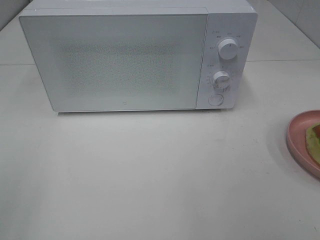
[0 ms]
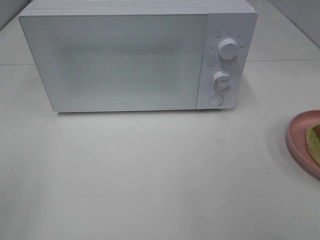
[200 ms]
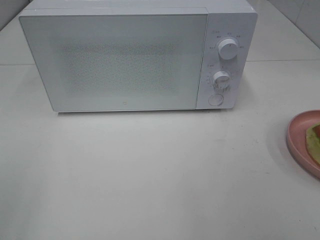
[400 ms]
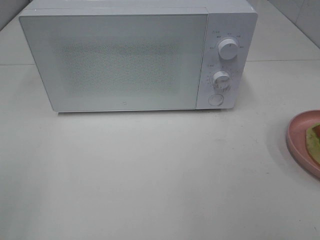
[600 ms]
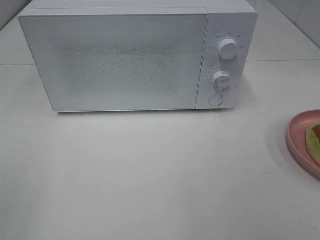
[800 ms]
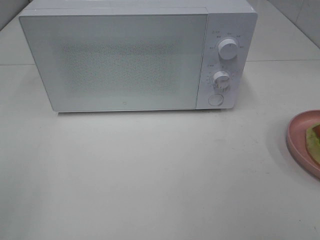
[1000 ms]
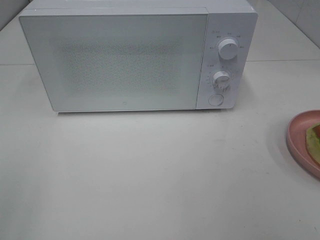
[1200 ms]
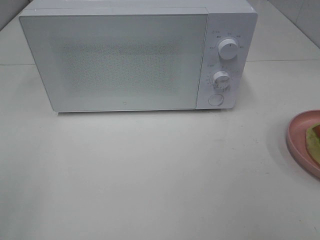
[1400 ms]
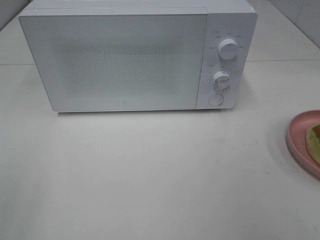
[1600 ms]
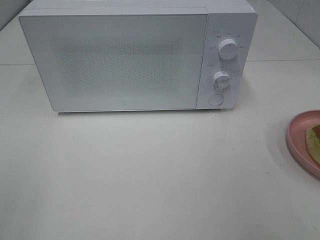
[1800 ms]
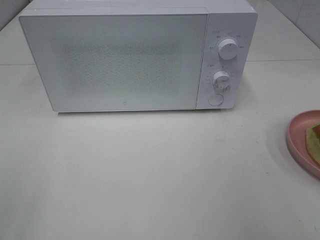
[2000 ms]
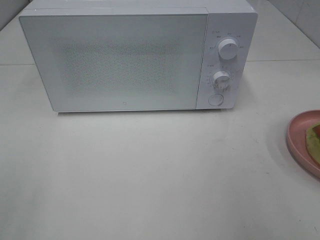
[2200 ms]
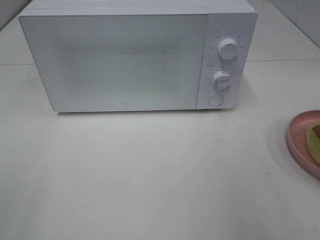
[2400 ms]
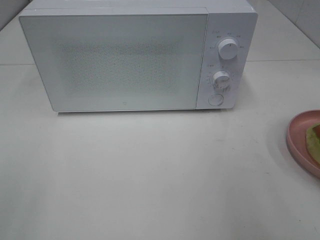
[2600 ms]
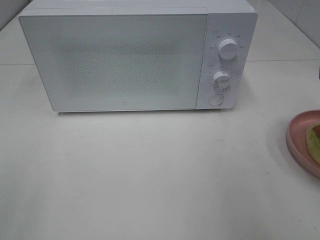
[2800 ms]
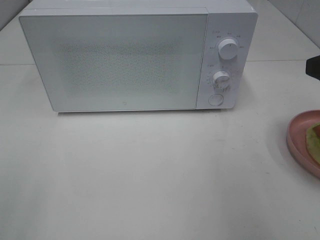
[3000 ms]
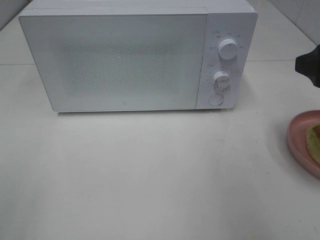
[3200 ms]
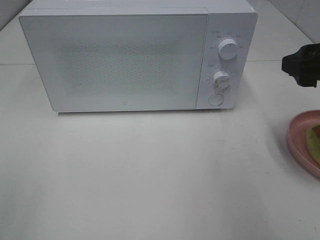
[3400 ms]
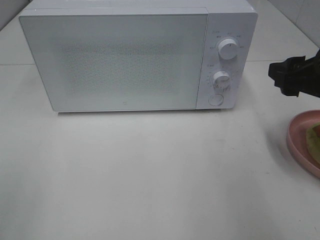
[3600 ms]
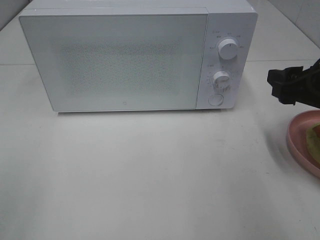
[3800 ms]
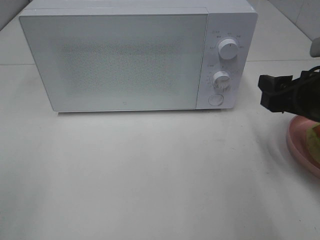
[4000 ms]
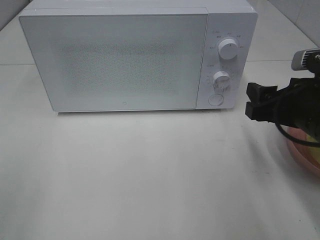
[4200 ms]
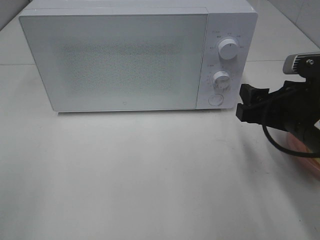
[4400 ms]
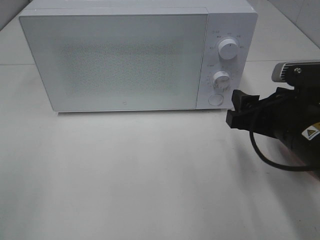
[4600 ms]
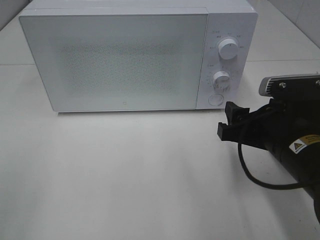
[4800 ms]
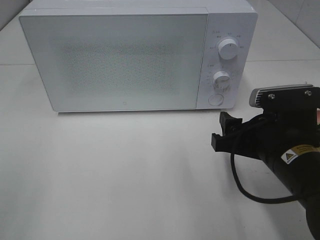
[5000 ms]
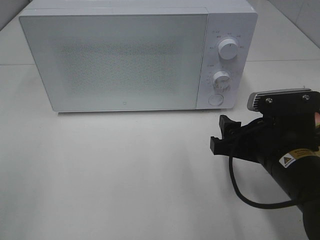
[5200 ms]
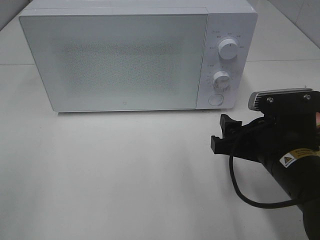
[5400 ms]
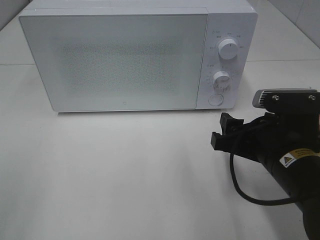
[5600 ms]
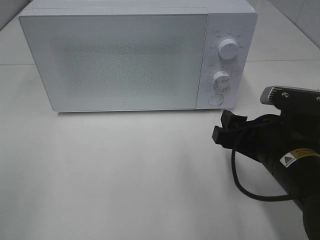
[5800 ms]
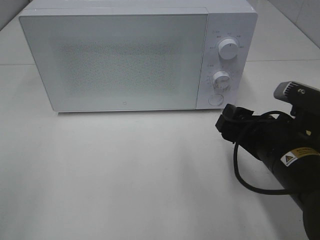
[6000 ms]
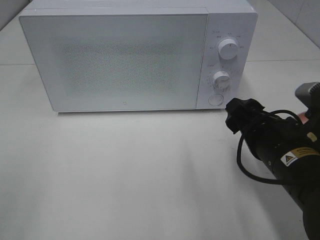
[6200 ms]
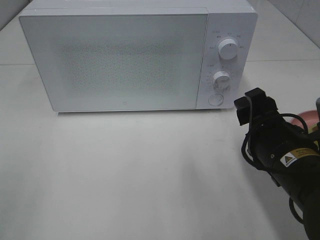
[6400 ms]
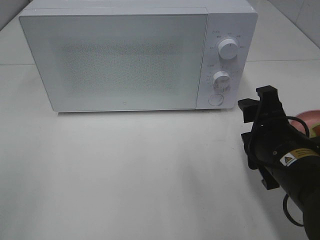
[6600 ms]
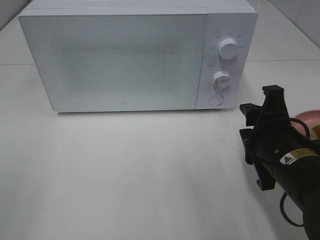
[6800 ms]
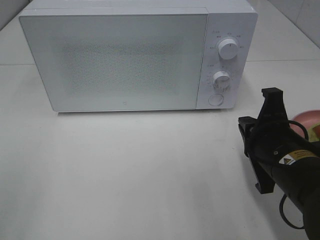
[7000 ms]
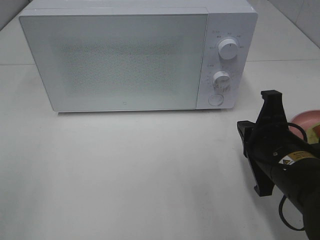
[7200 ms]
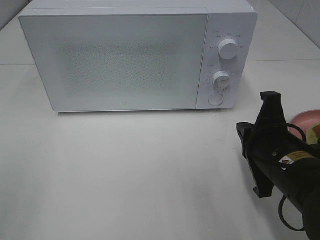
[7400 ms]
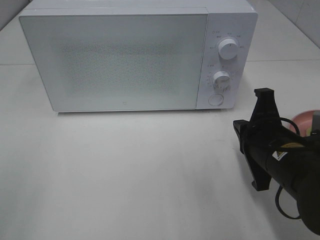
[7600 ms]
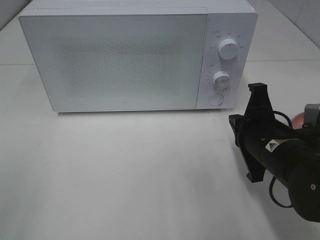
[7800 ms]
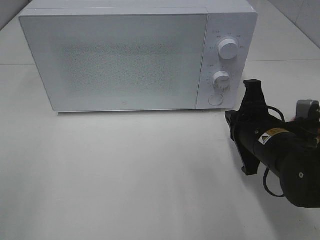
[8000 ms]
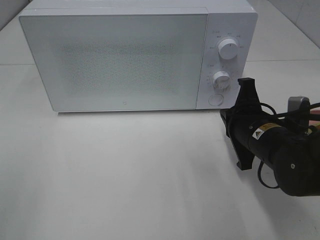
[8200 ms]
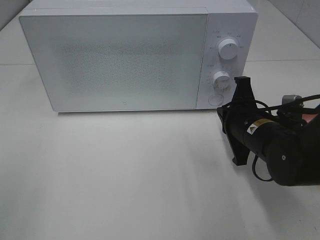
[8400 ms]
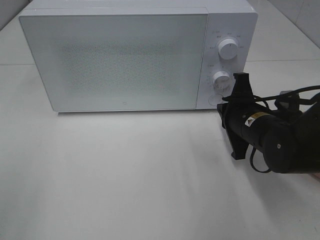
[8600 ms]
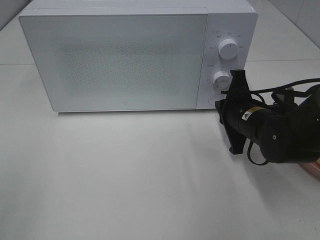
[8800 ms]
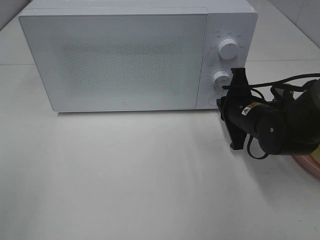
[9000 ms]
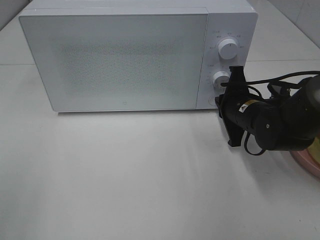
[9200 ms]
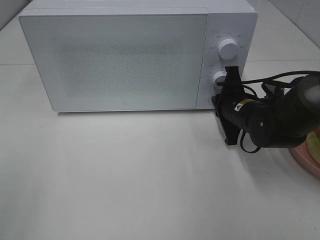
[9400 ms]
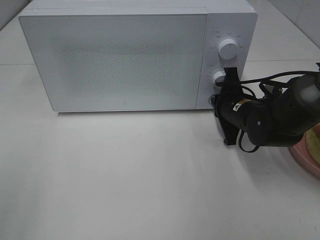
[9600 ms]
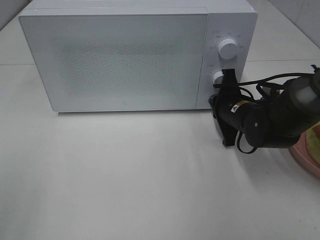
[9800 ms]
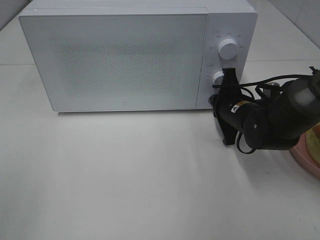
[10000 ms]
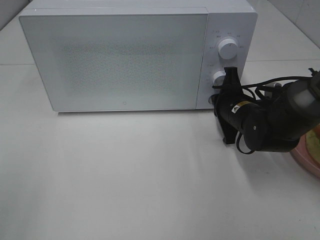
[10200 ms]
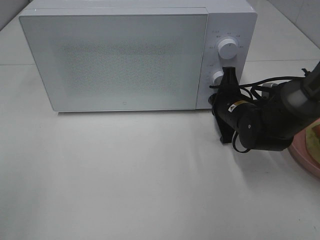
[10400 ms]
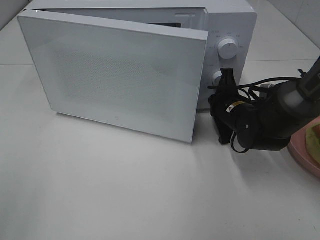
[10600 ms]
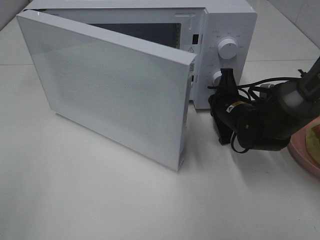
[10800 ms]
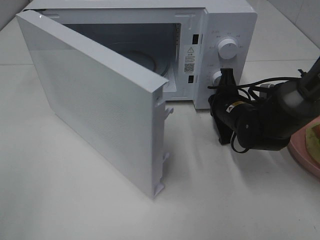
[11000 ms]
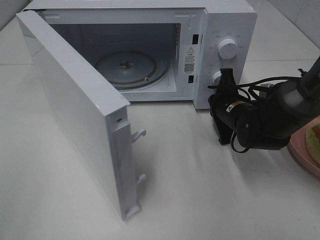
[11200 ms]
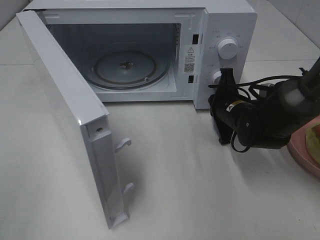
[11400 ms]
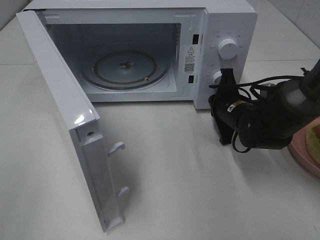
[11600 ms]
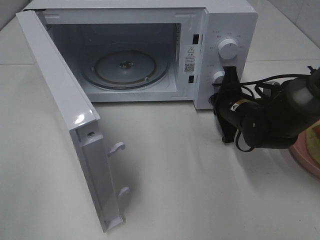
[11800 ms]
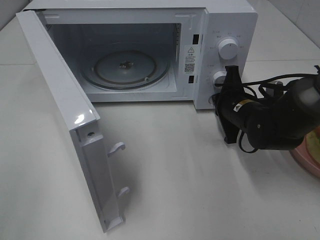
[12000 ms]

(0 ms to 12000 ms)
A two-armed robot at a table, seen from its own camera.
Task of the whole recording: Heat Sandwich.
3000 ms - 4400 ms: The right gripper shifts roughly 10 cm downward and to the left.
4400 ms - 6000 ms: The right gripper moves some 5 cm.
6000 ms - 7600 ms: The right gripper closes its fingers.
7600 ms - 9000 ms: The right gripper goes roughly 10 cm forward.
9000 ms - 10400 ms: The grippers stay close to where they were, moving slightly.

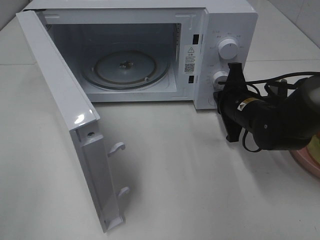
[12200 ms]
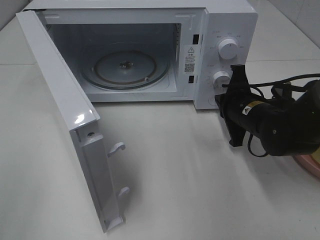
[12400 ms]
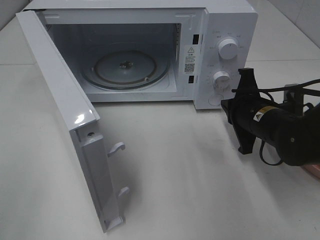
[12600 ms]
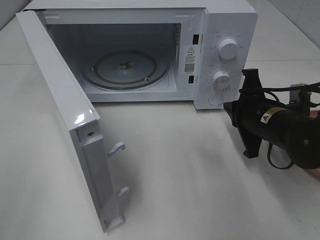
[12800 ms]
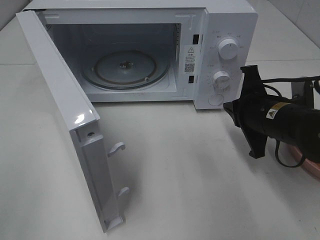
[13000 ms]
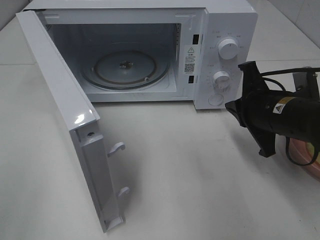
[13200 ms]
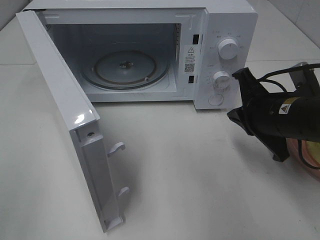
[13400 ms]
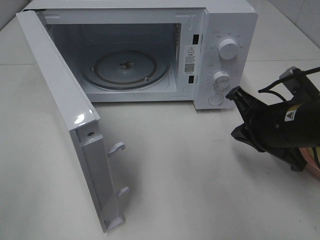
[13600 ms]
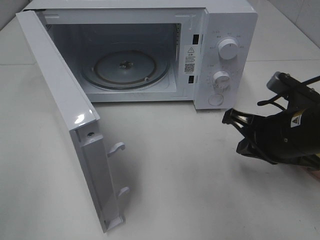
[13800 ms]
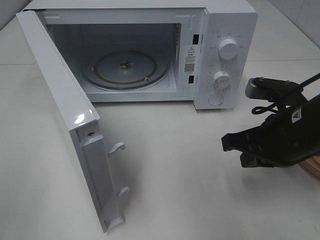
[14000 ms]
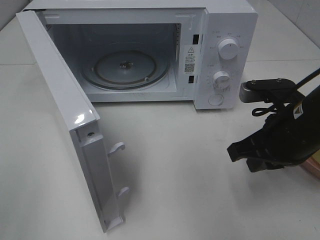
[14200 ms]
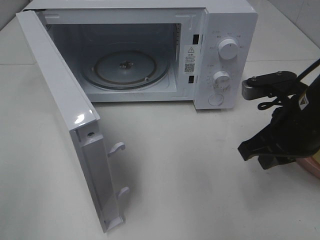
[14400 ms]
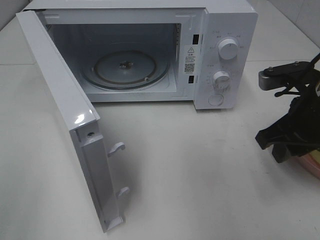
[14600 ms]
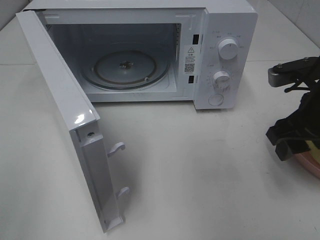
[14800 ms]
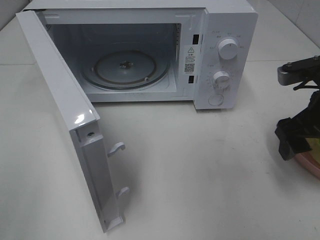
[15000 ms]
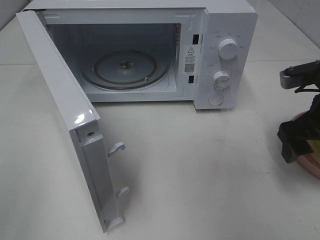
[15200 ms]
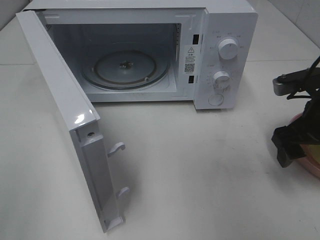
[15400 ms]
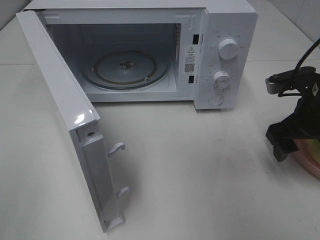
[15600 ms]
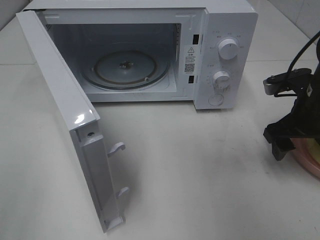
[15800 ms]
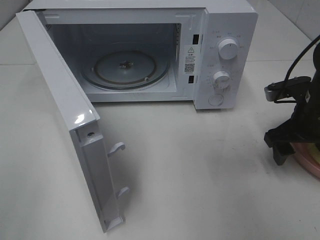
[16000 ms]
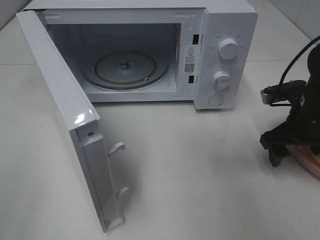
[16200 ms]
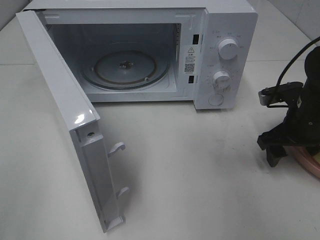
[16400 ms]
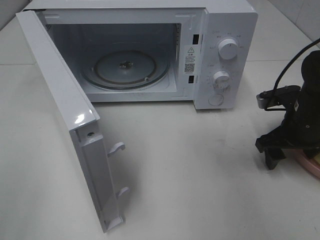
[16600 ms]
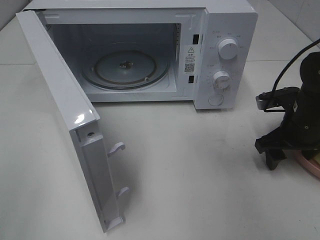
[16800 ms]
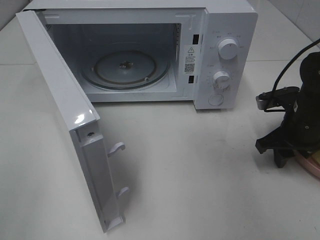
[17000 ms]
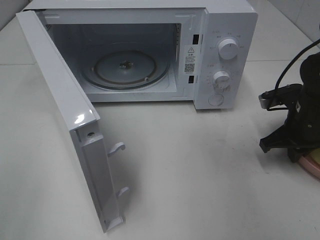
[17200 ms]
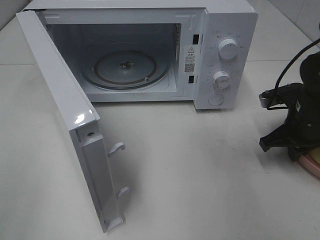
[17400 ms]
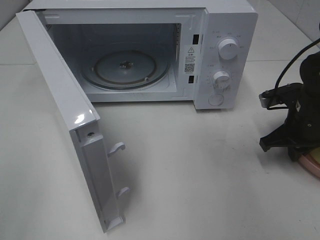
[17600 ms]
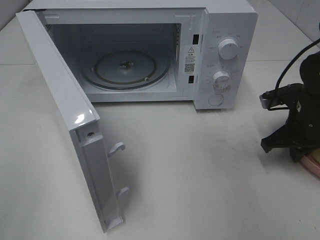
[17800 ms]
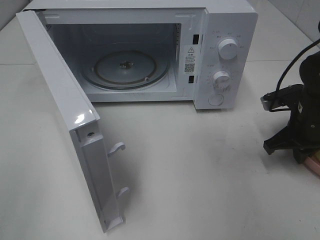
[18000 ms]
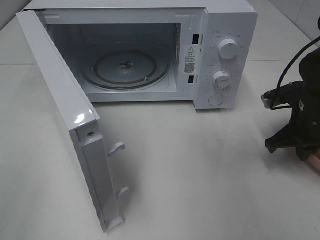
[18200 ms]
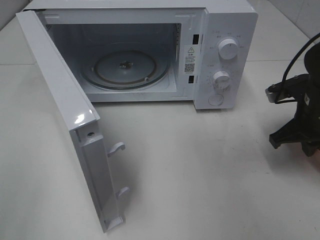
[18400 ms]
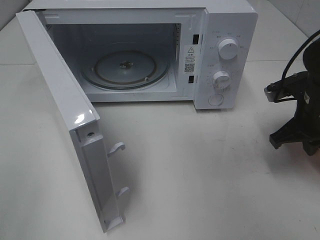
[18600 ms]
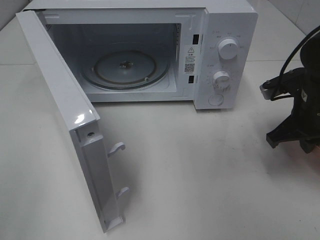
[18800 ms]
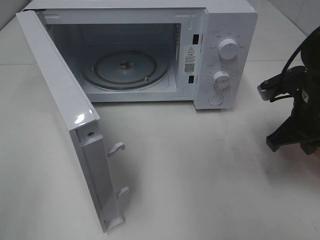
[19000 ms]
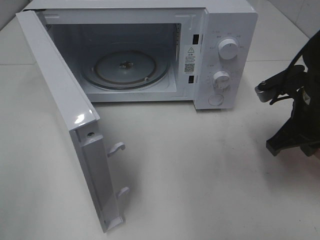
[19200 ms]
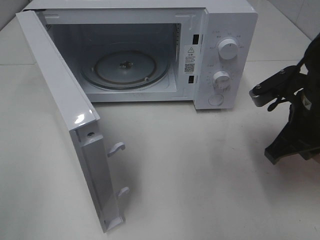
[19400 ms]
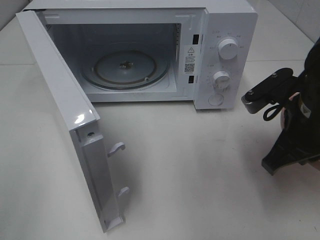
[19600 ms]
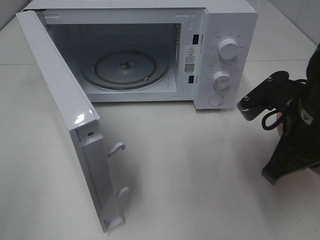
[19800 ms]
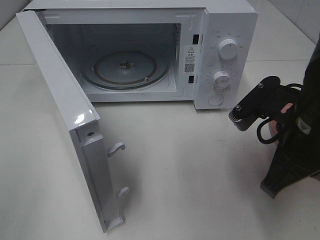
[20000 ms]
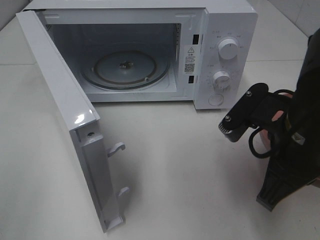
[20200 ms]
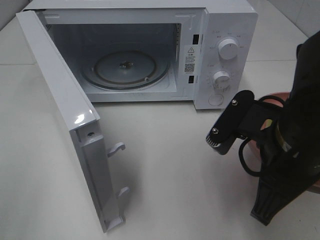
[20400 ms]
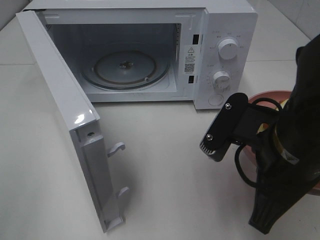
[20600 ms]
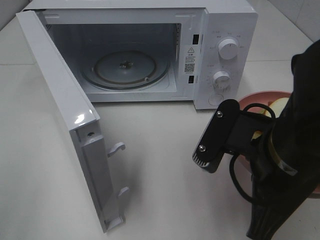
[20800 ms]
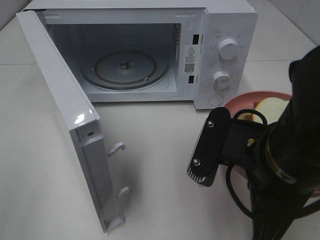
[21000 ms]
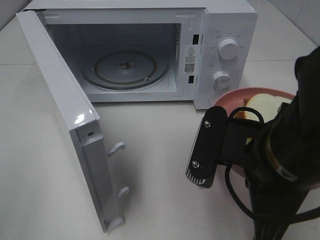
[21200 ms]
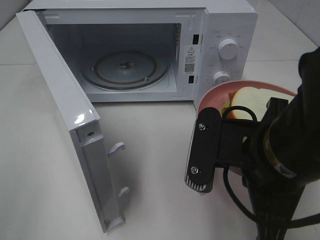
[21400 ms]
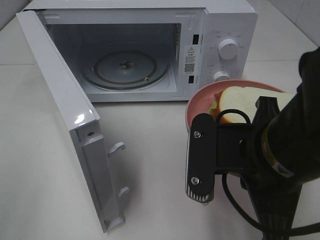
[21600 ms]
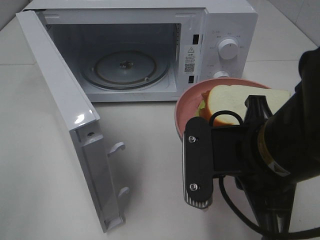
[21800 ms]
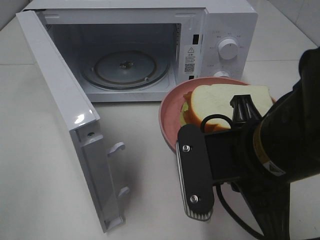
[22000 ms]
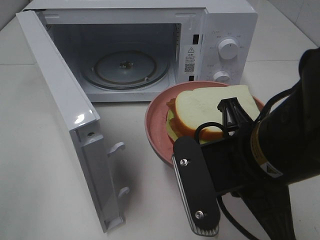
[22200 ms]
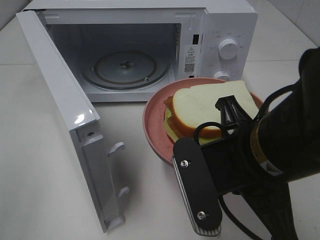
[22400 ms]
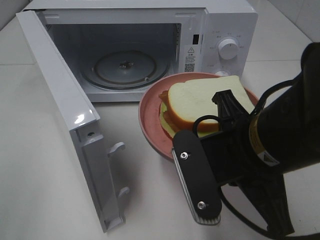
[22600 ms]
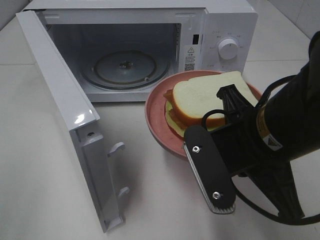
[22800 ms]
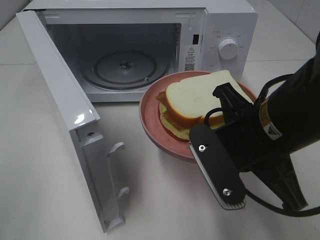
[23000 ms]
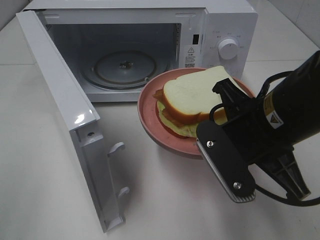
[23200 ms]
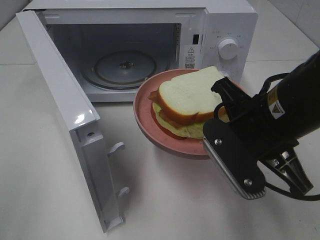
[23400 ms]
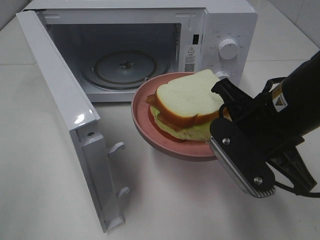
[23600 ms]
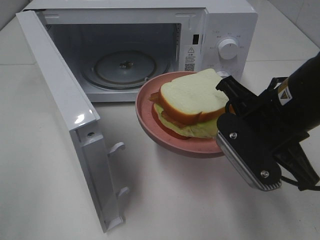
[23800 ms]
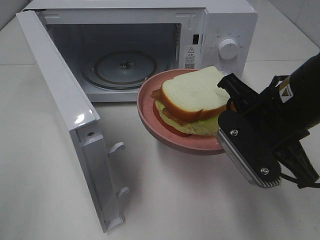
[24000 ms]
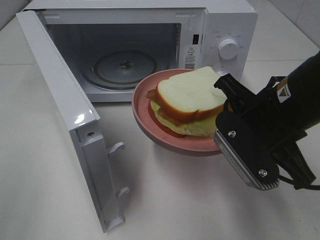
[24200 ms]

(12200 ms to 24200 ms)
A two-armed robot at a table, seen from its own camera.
Task of the whole recording: Heat Sandwich.
Step, 12800 ms - 17600 ms: Right hand: grab the plate with the sandwich.
12200 ms - 13800 ms: The right gripper shifts about 10 cm backward and upward.
13800 ms - 15200 ms: The right gripper heads to the right, covering some 5 cm, and opens up.
15200 ms - 16600 ms: The right gripper goes about 10 cm downward and forward.
16600 ms - 18200 ms: The right gripper closes.
18200 ms - 19800 ms: The right gripper heads backward, to the left and upward, covering some 15 cm.
19800 ms - 21200 ms: The right gripper moves backward and to the left, approximately 10 cm.
22600 ms - 24200 ms: The right gripper goes some 5 cm forward.
